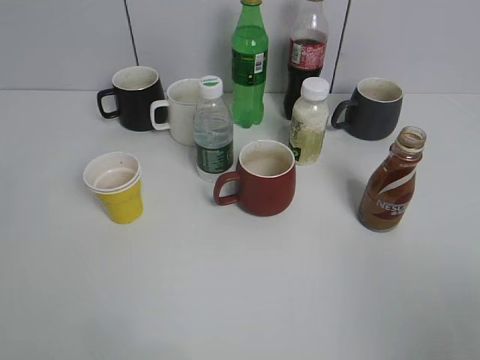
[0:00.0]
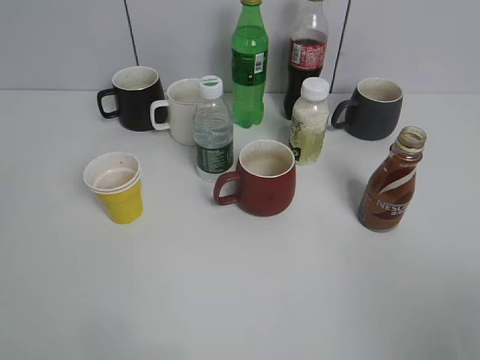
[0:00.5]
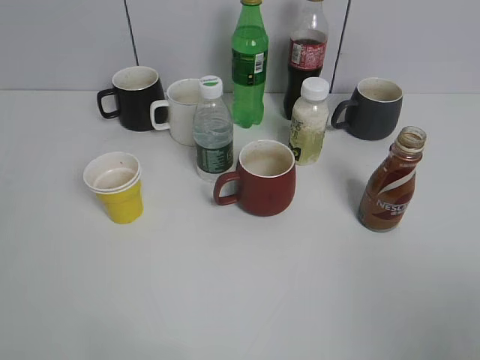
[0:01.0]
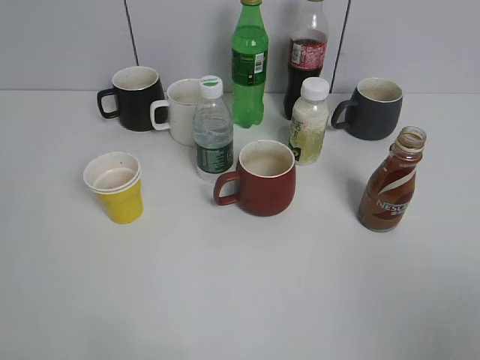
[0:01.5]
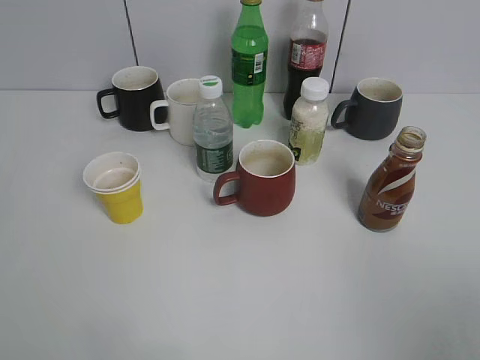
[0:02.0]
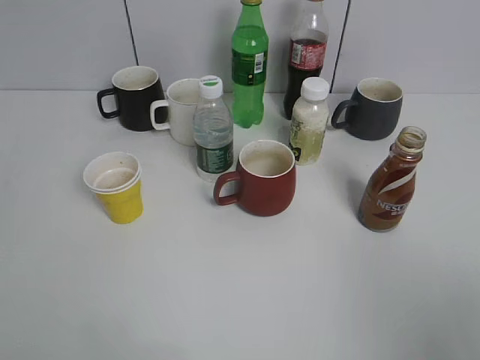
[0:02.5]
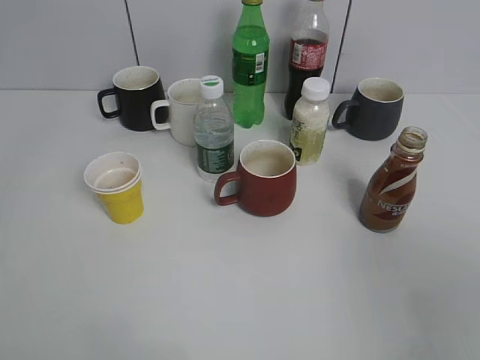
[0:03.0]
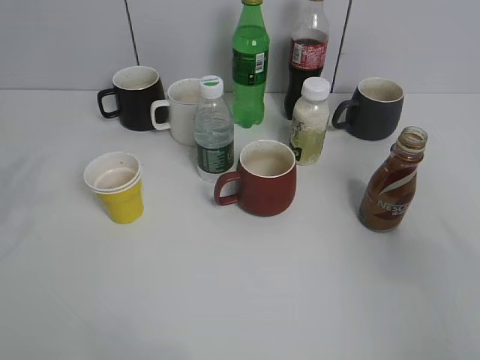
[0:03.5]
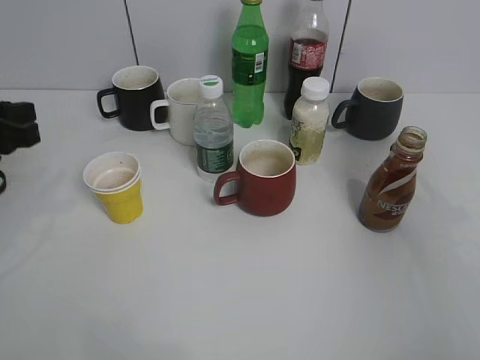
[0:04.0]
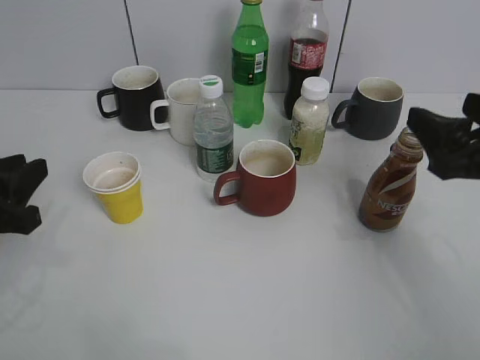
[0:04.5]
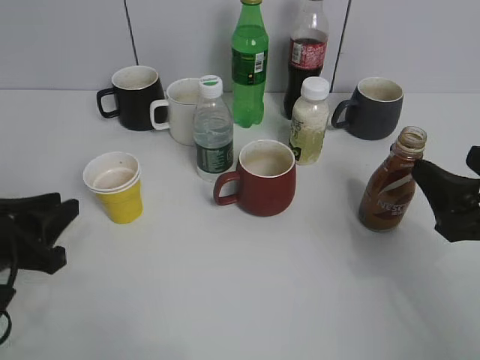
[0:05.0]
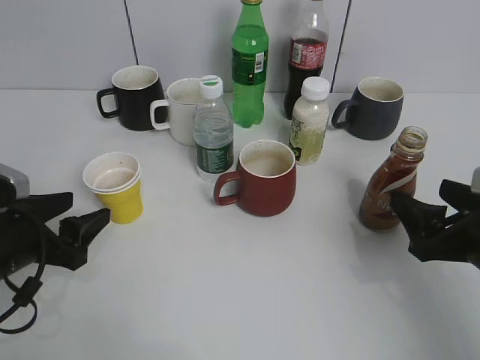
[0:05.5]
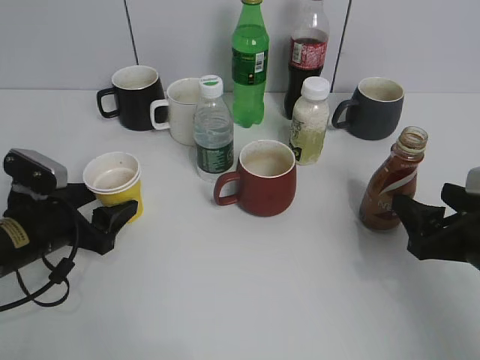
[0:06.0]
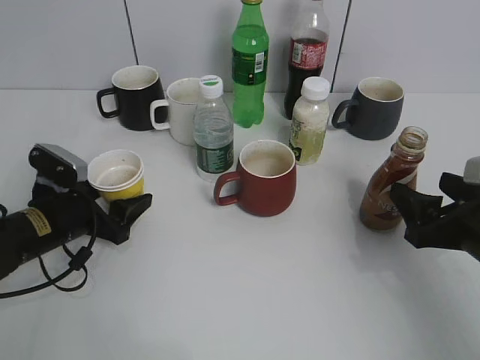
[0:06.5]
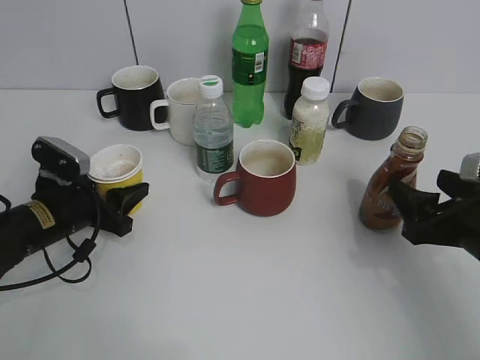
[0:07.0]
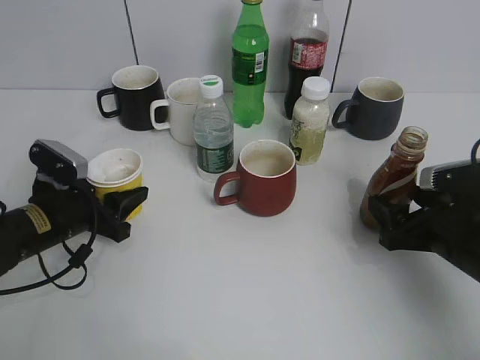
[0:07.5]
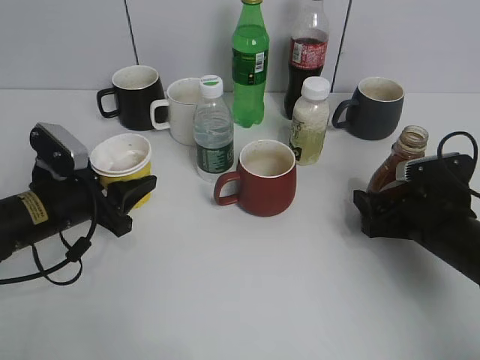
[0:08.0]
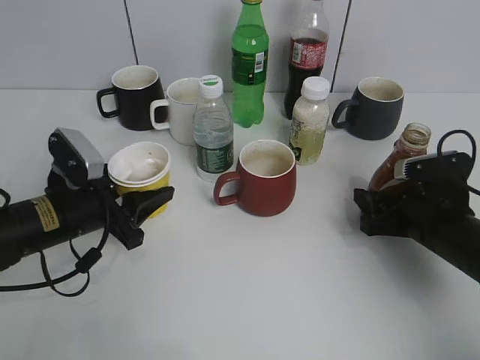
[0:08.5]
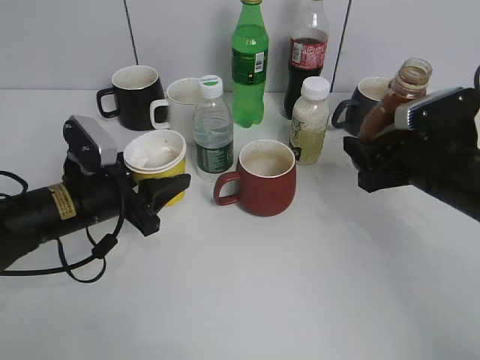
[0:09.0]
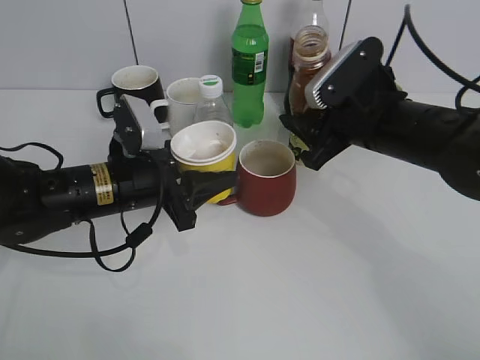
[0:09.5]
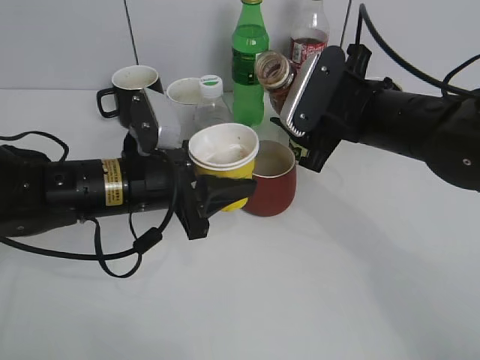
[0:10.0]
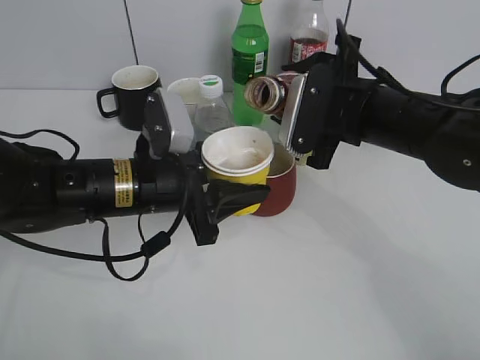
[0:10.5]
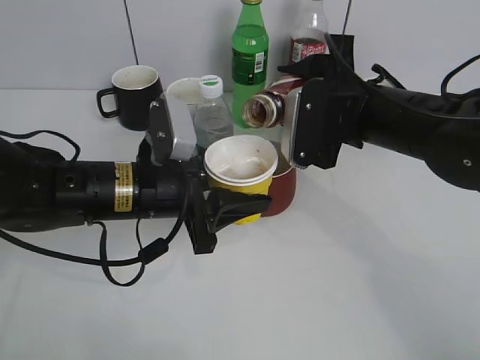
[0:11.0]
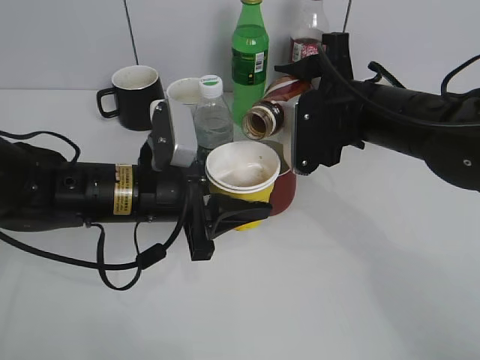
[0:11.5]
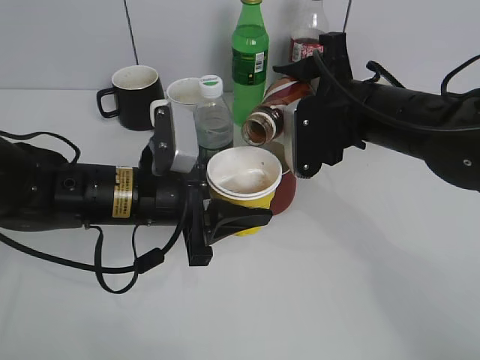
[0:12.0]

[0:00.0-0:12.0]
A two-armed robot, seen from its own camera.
Step, 0:02.0 to 0:06.0: Grasp the yellow paper cup with left gripper.
Step, 0:06.5 to 0:08.0: Grasp the bottle with coffee with right gripper.
0:02.0 to 0:04.0: The two grippers go approximately 25 cm forward.
0:04.0 to 0:06.0: The two grippers go approximately 15 cm downward. The left gripper opens.
0:06.0 to 0:08.0: The right gripper shifts roughly 10 cm forward and downward, while the left gripper closes its fingers.
0:08.0 to 0:10.0: The left gripper is displaced to the right and upward by roughly 10 cm, while the right gripper travels upward and to the left by approximately 15 cm, and closes.

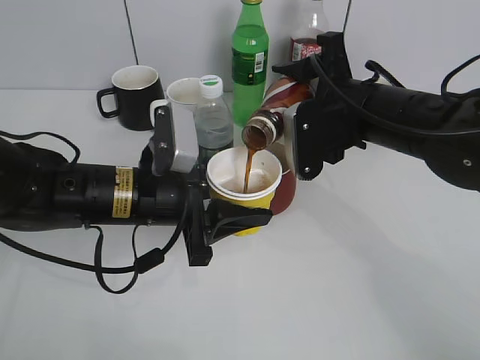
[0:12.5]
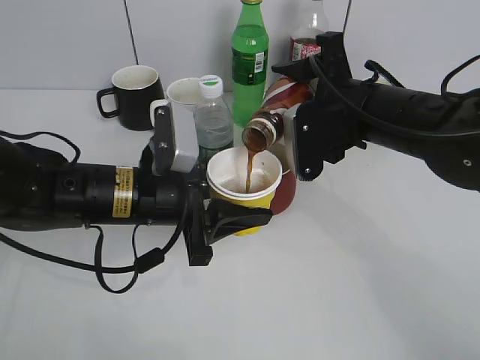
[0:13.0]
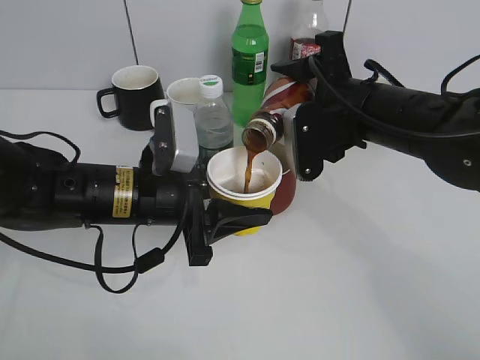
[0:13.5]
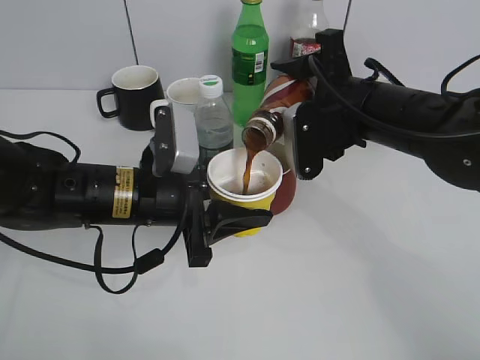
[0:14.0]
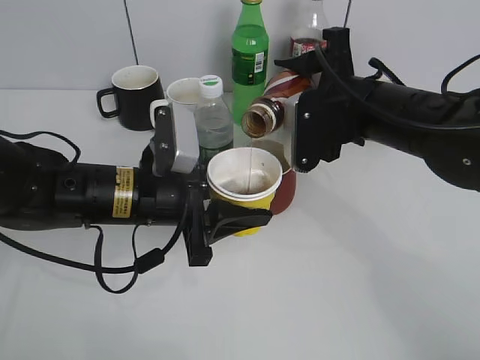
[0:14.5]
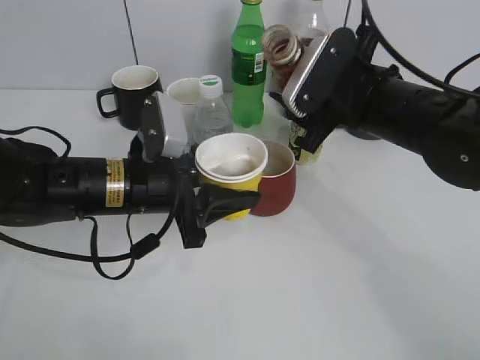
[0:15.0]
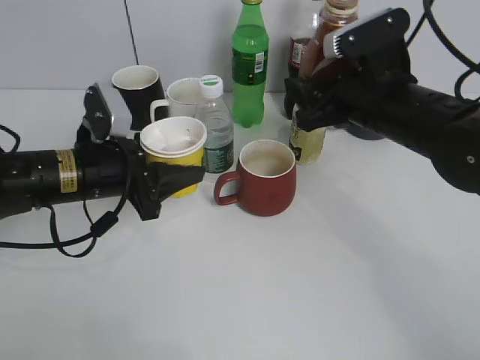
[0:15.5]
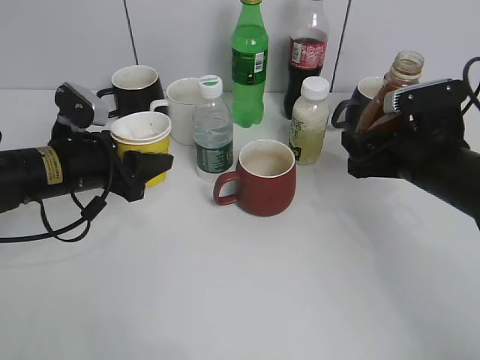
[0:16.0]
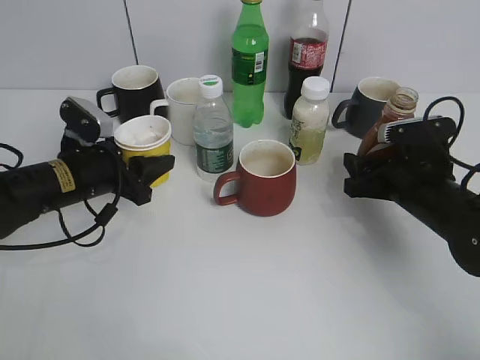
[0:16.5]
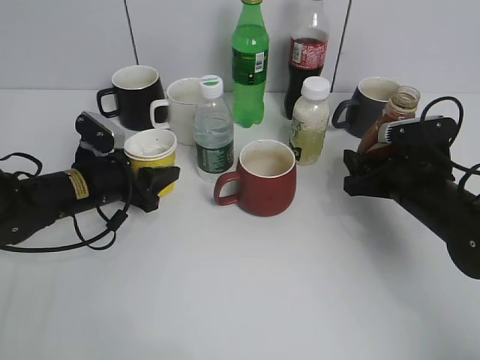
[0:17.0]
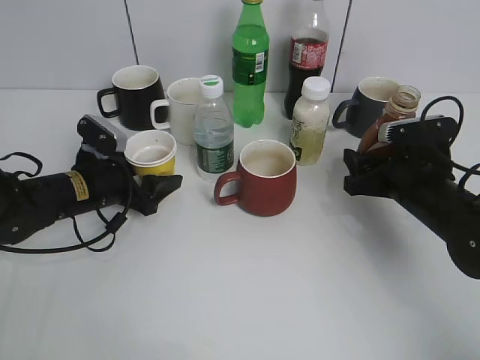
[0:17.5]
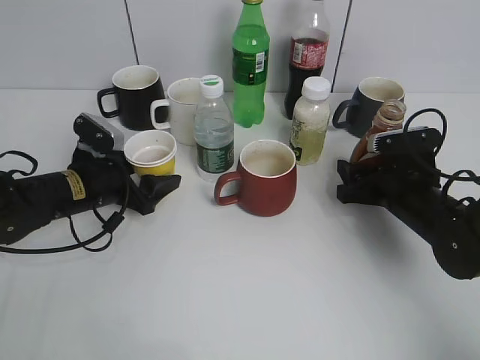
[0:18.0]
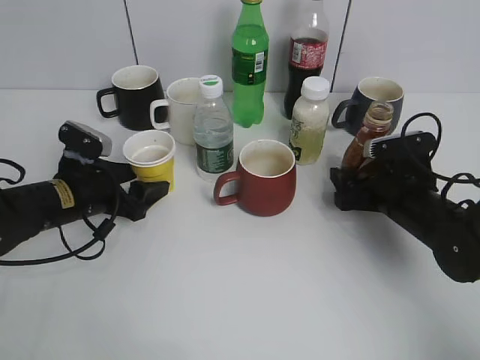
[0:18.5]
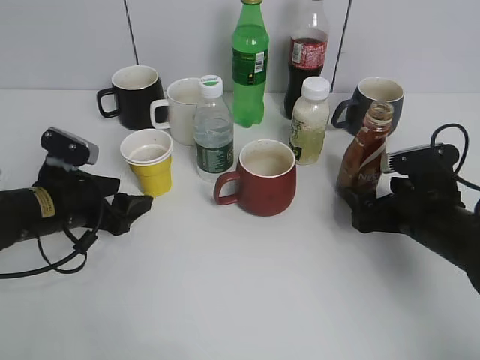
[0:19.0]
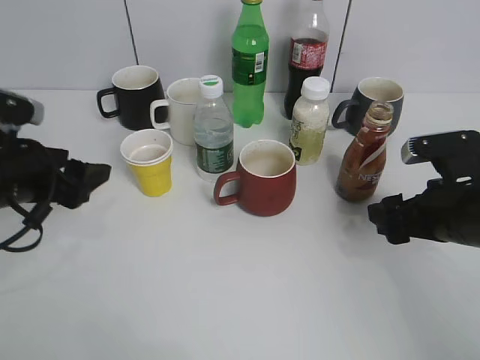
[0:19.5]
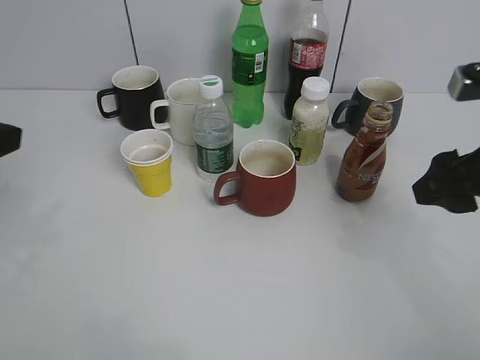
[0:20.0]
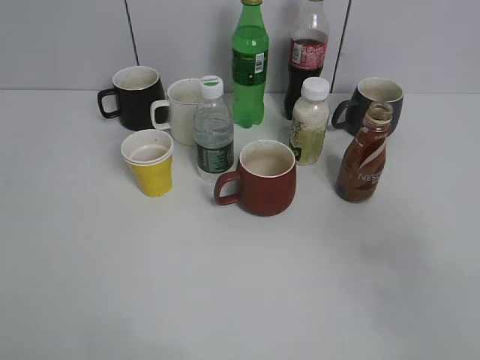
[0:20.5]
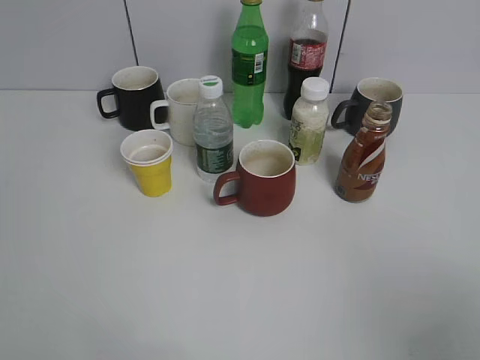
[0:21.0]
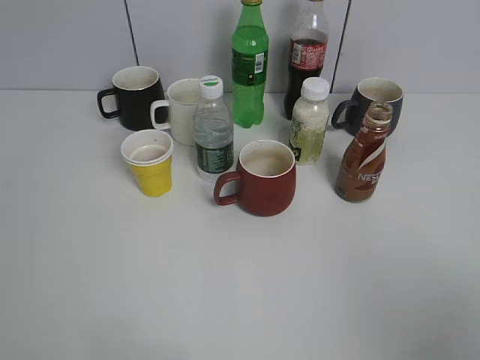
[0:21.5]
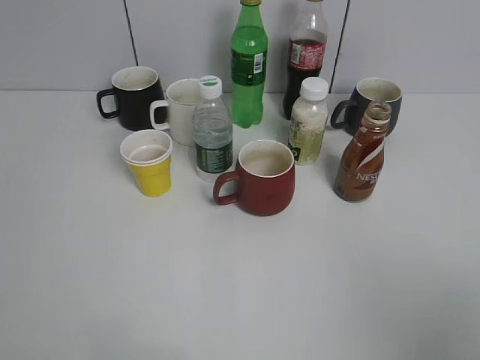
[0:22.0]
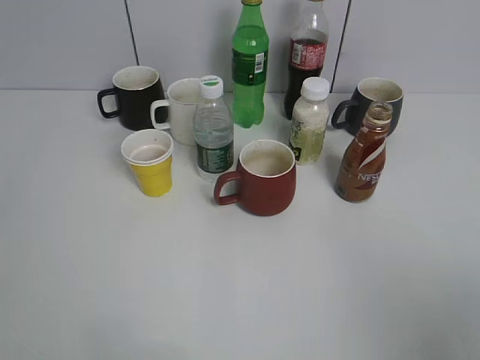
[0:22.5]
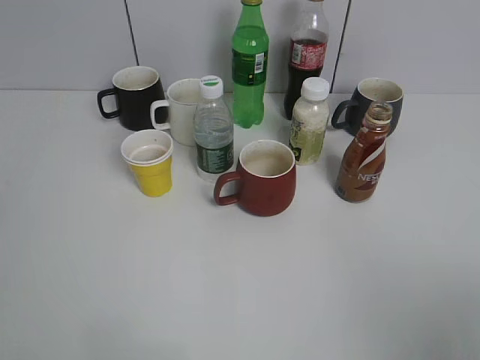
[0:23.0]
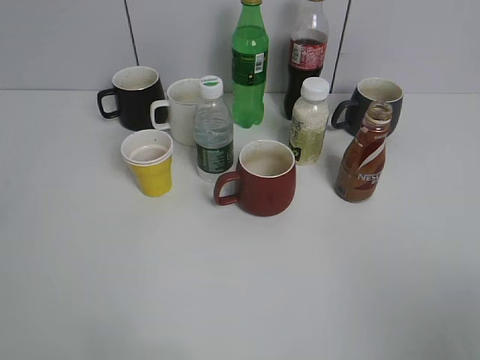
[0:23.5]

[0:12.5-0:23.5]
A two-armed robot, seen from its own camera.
Step, 0:12.5 to 0:15.0: Pour the coffee from bottle to cup with right gripper.
Step, 0:15.5 to 0:18.5: Place the coffee bottle on the table with right gripper.
0:12.5 to 0:14.5: There are only small adjustments of the grippers.
0:14.5 to 0:16.0: The left gripper moves to the left and forward, some 10 cm; the right gripper goes approximately 10 cm to the right and downward.
0:16.0 to 0:18.0: Both grippers move downward, roughly 5 cm. The left gripper opens.
0:18.0 to 0:20.0: The grippers both shift upward and backward by approximately 20 cm. The right gripper opens up.
0:20.0 to 0:21.5: The right gripper heads backward, covering about 25 cm.
